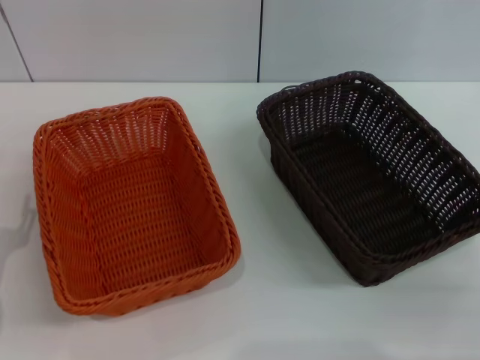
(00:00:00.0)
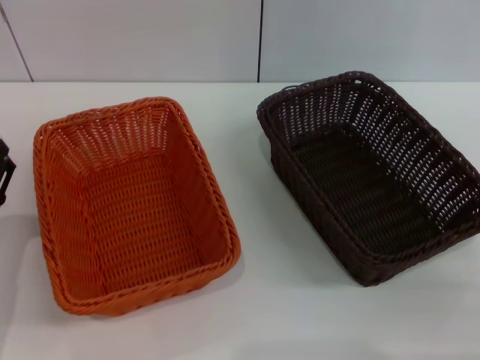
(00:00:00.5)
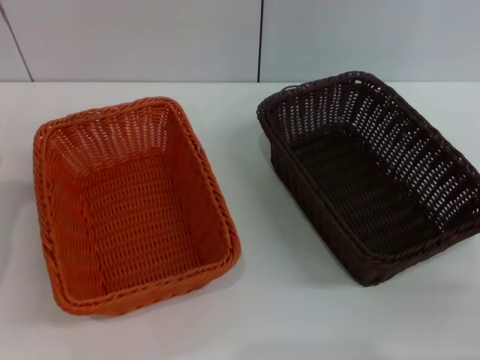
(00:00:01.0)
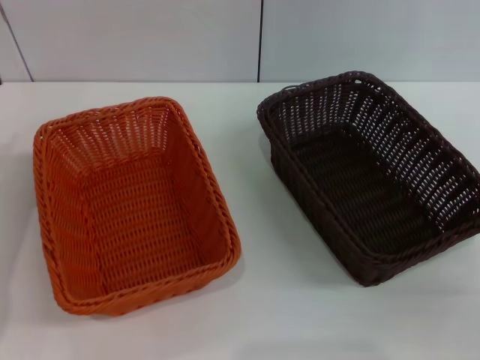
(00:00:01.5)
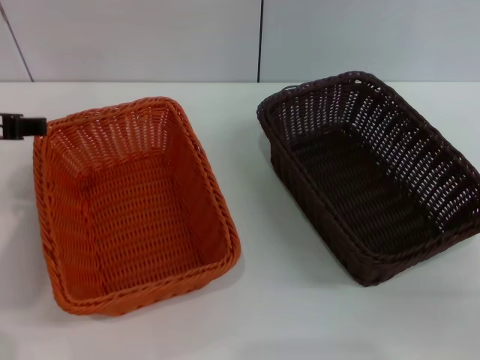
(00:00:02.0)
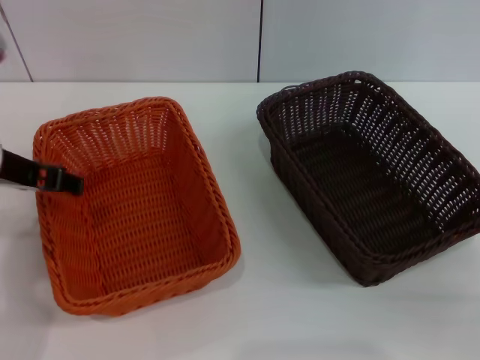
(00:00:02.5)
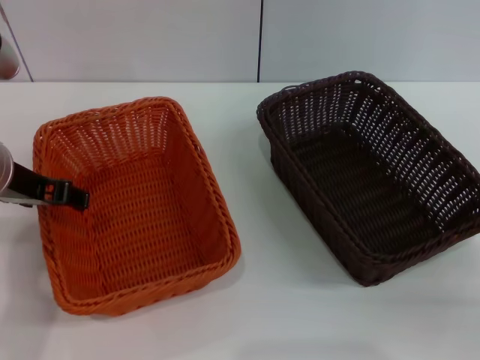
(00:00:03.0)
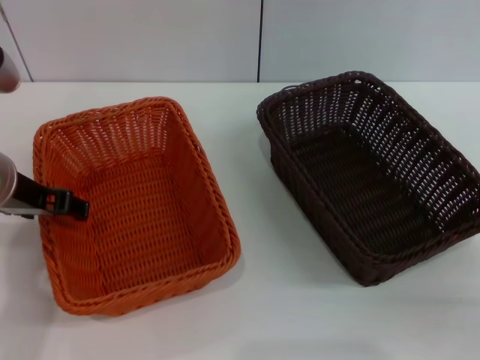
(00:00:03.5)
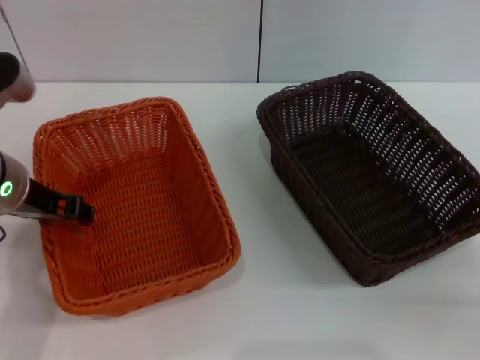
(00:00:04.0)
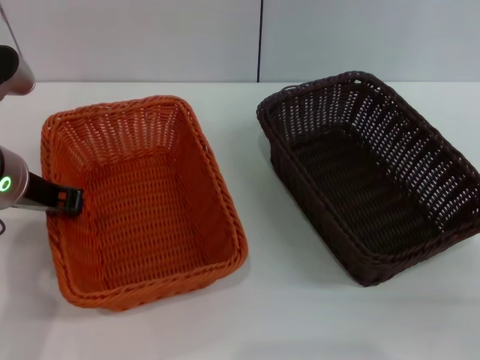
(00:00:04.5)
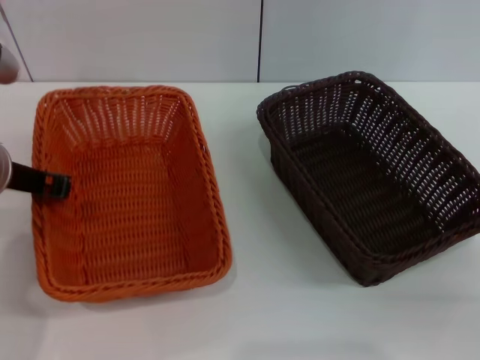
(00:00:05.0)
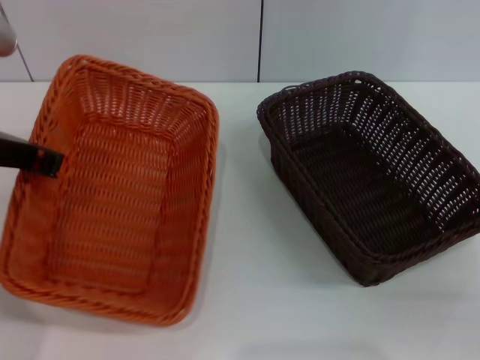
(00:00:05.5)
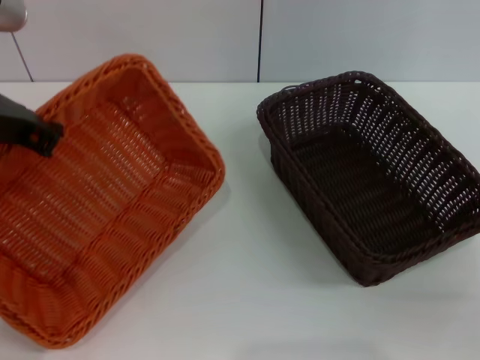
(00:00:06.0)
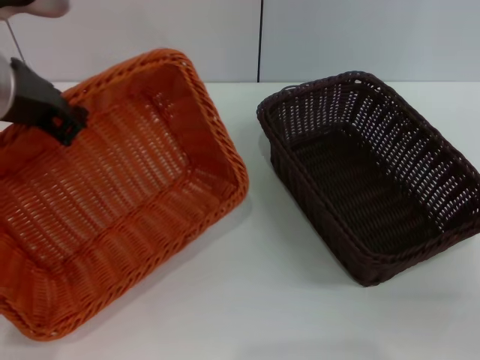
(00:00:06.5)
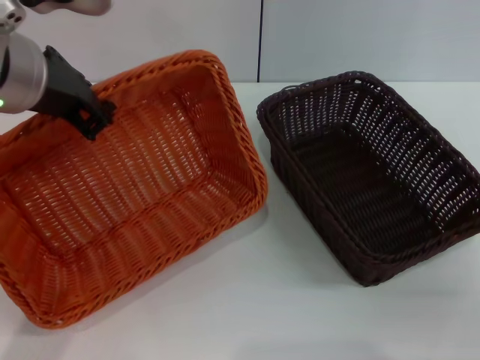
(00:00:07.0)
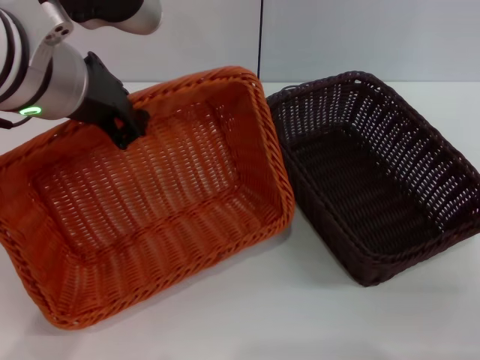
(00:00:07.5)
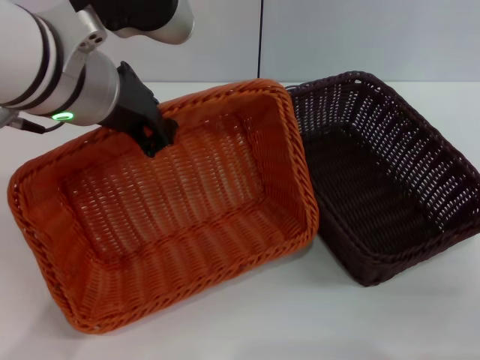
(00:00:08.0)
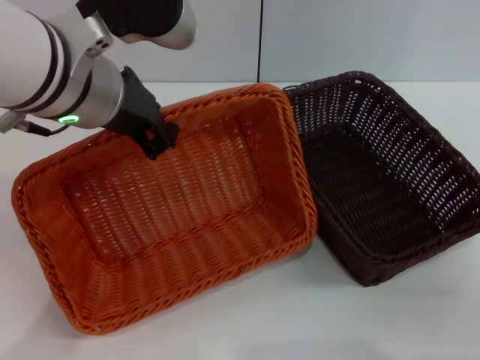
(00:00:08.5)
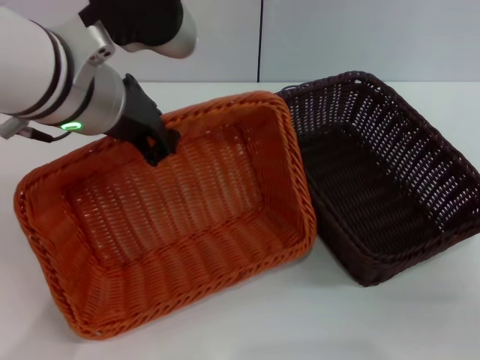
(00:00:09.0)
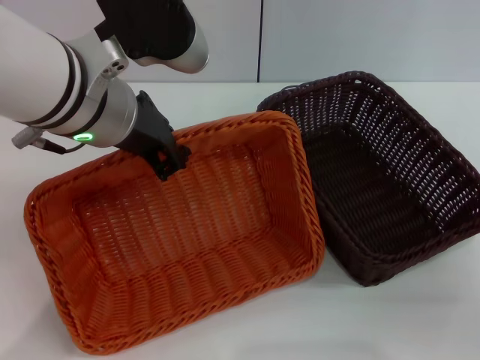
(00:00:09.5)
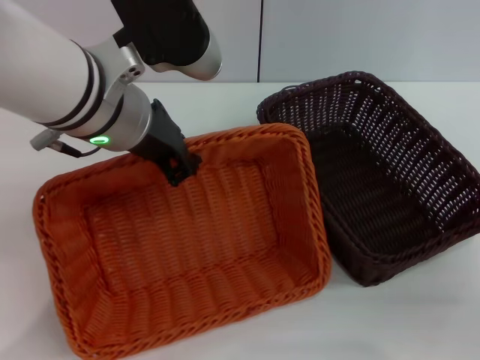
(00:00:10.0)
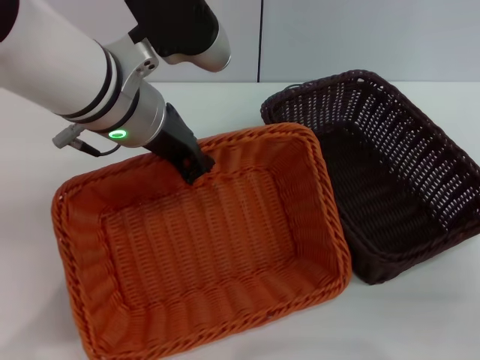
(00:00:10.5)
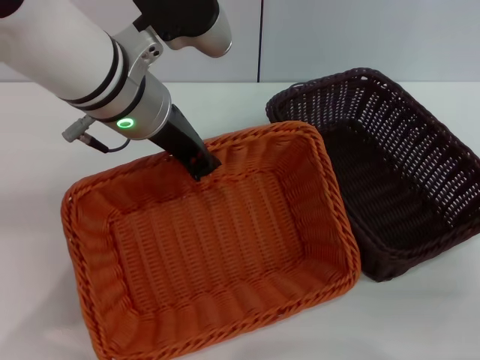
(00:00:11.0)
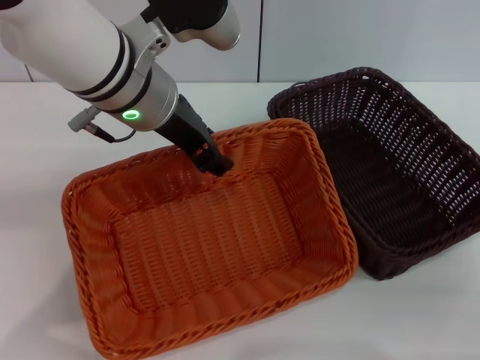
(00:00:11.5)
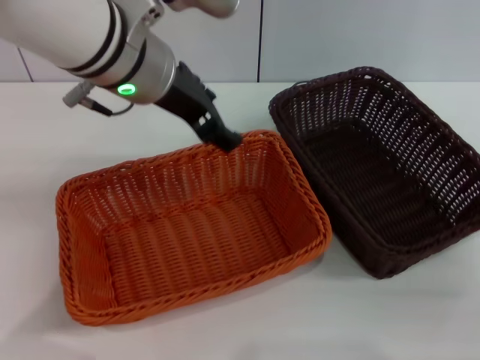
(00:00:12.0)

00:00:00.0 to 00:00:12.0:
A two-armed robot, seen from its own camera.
Step, 00:00:00.0 to 00:00:05.5: Pick up the light basket with the left gripper.
Step, 00:00:06.0 to 00:00:11.5: Place the light basket in the center of view with the left gripper.
00:00:00.0 to 00:00:02.0: The left gripper shifts roughly 25 cm upward and forward.
00:00:02.0 to 00:00:04.0: The left gripper goes about 5 cm downward.
00:00:04.0 to 00:00:06.0: The left gripper heads upward, covering roughly 10 cm, and closes.
00:00:06.0 to 00:00:08.0: The left gripper goes approximately 10 cm to the right.
00:00:10.0 to 00:00:12.0: The left gripper opens up.

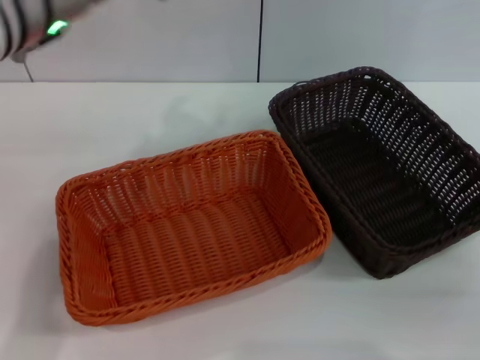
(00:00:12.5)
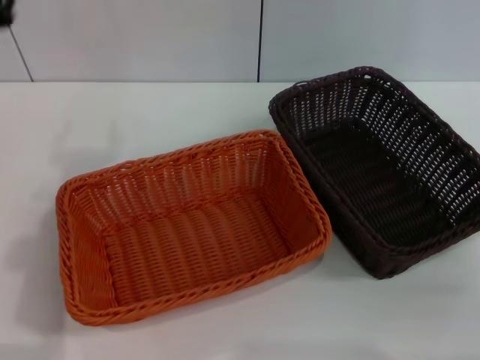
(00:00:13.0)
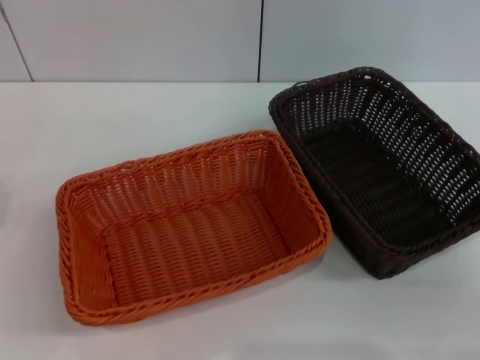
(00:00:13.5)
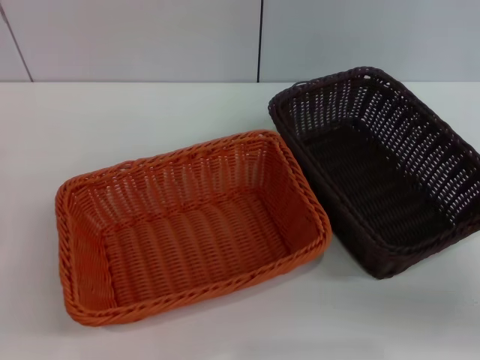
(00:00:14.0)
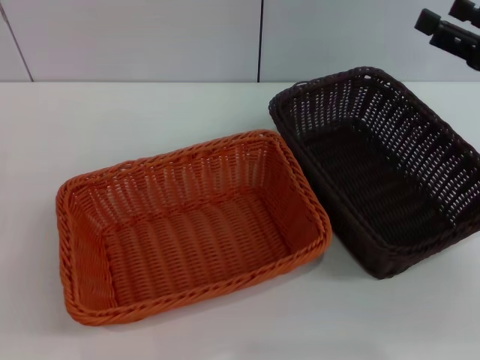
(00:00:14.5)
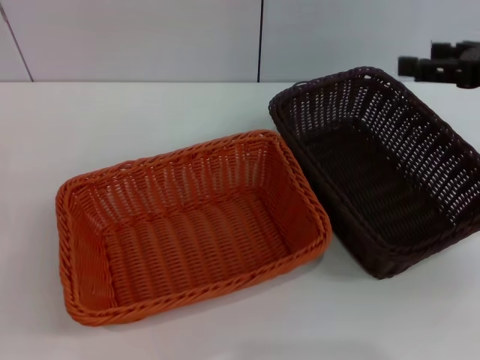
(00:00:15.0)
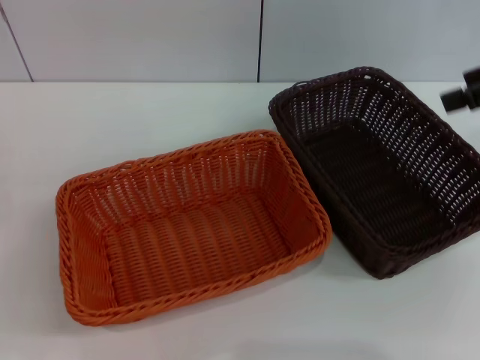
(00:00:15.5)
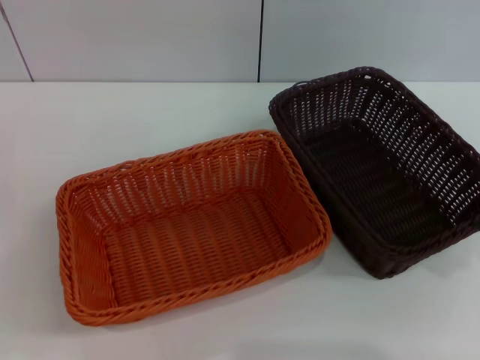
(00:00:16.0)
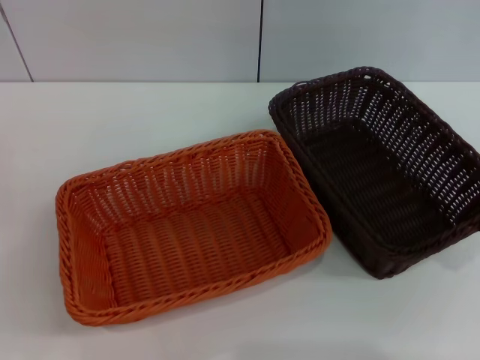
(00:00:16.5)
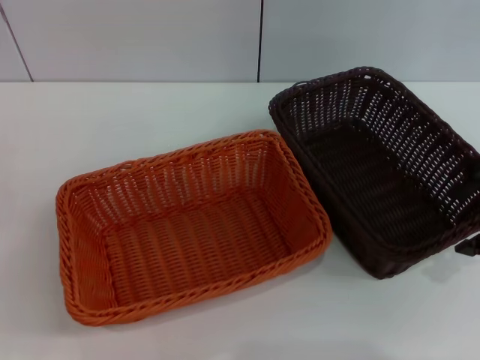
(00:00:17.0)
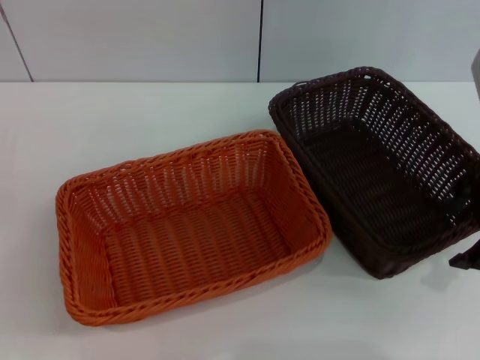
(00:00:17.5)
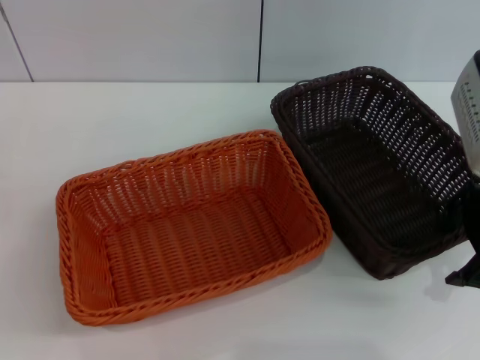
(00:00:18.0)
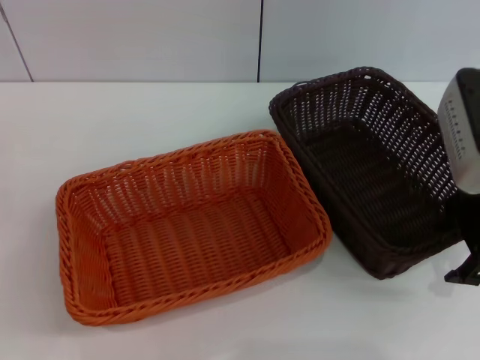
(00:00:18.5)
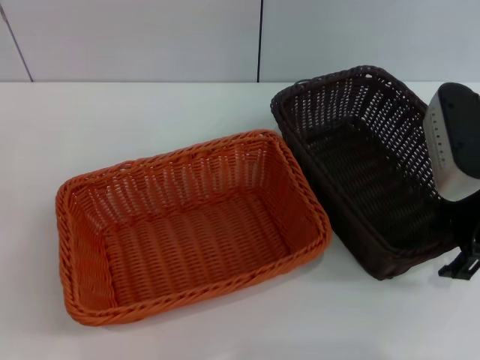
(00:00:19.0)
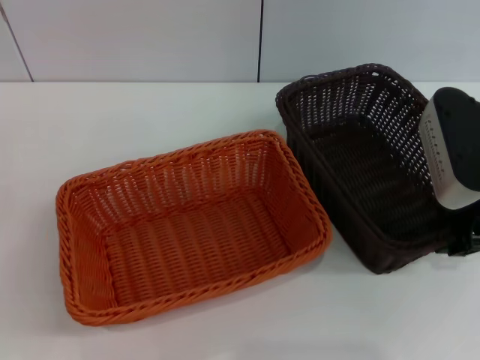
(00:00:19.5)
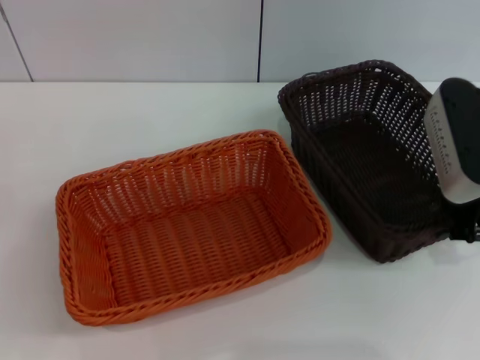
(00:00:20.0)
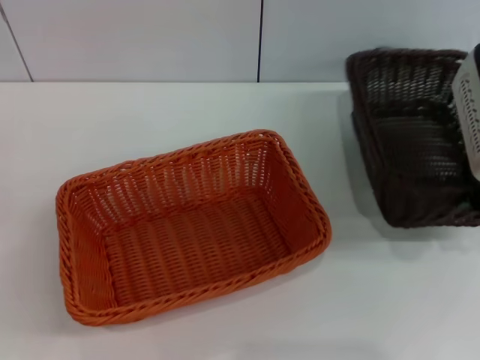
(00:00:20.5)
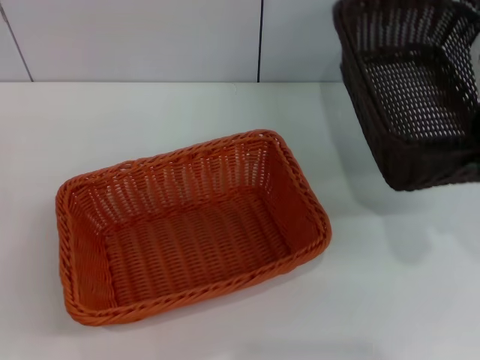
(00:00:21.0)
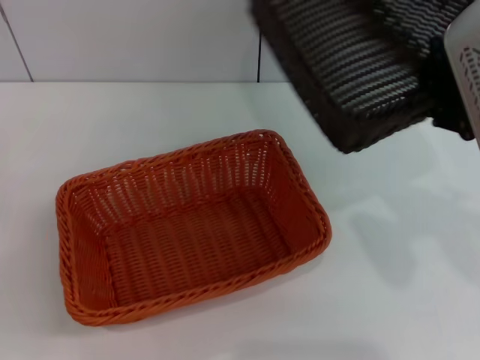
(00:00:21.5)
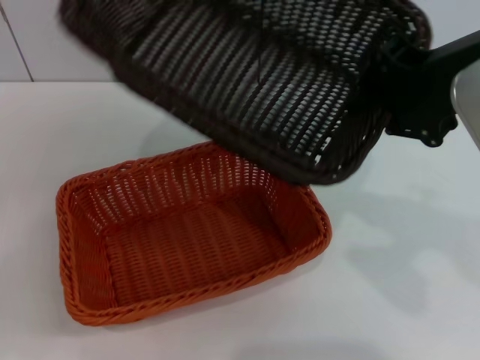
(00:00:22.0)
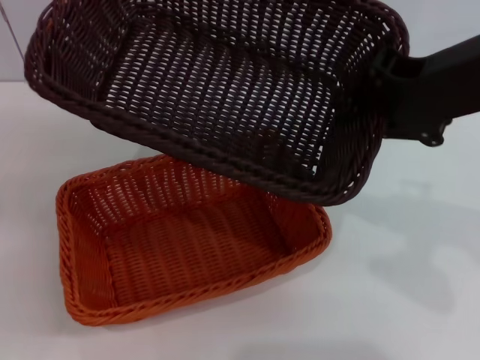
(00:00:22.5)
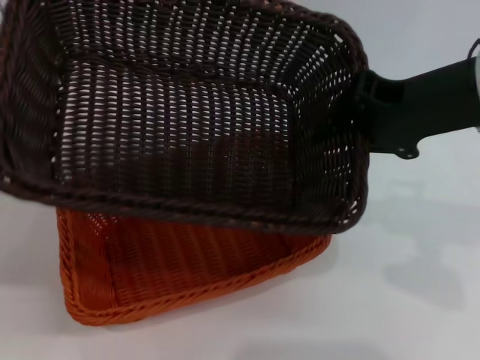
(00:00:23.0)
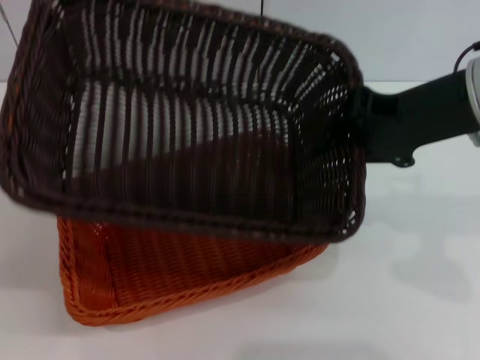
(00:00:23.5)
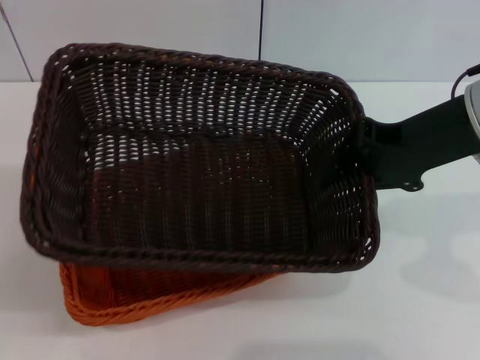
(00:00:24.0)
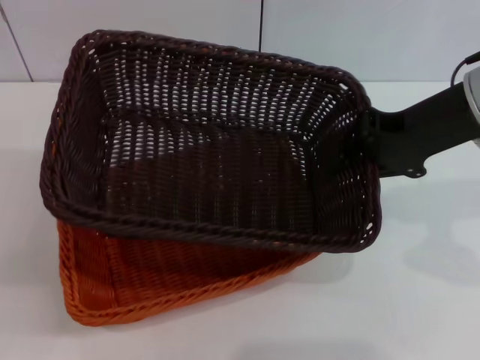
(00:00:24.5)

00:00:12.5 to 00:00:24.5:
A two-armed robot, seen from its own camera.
Step, 00:00:12.5 to 00:00:20.5: Pick up the dark basket with the right gripper.
00:00:12.5 to 00:00:14.5: The right gripper shifts some 15 cm forward and upward, while the left gripper is displaced downward, to the left and backward by about 35 cm.
00:00:14.5 to 00:00:16.5: The right gripper goes roughly 10 cm upward.
00:00:16.5 to 00:00:18.5: The right gripper heads downward, covering some 5 cm.
00:00:18.5 to 00:00:20.5: The right gripper closes.
00:00:20.5 to 00:00:22.5: The right gripper travels upward and to the left by roughly 10 cm.
00:00:22.5 to 00:00:24.5: The right gripper travels downward and forward by some 10 cm.

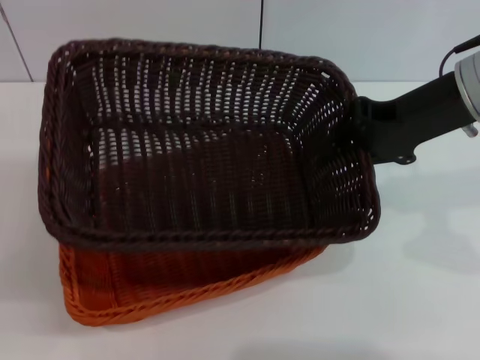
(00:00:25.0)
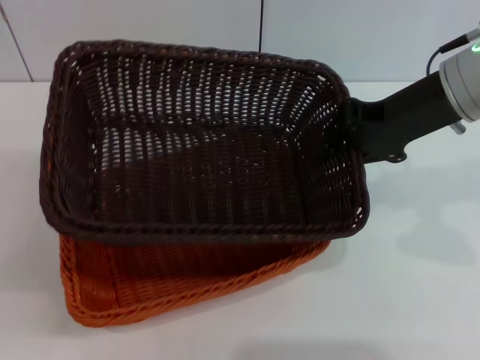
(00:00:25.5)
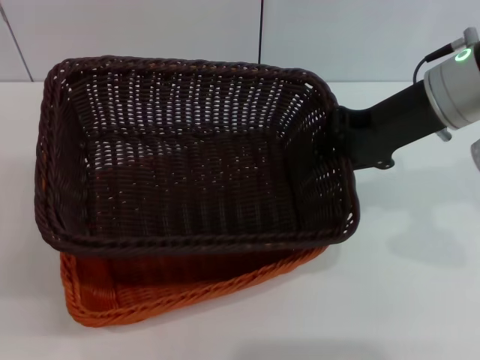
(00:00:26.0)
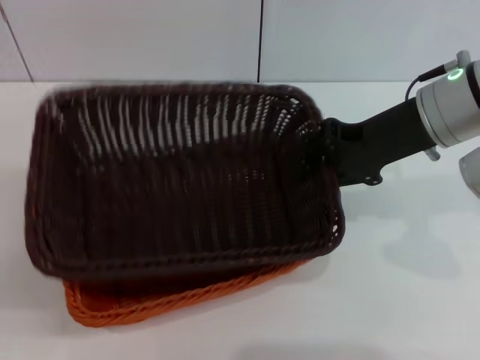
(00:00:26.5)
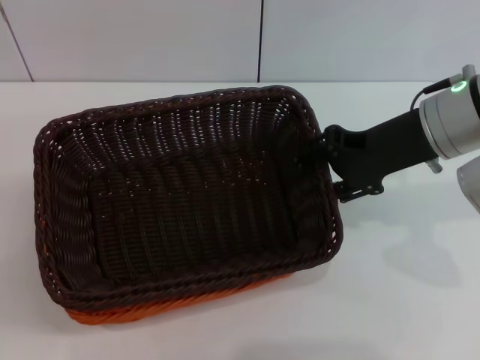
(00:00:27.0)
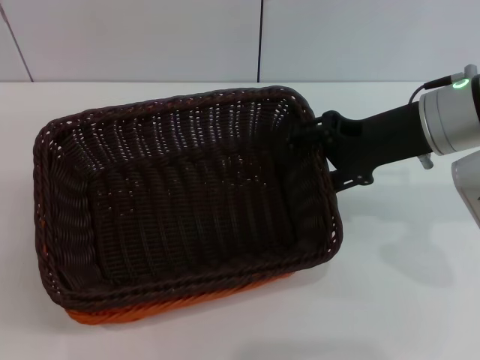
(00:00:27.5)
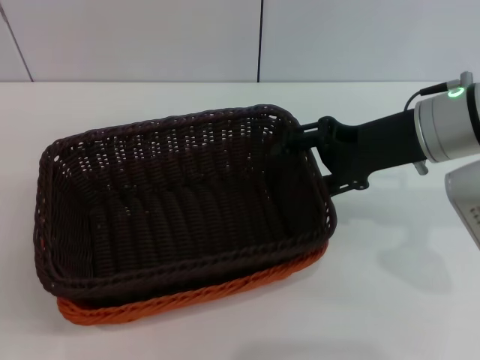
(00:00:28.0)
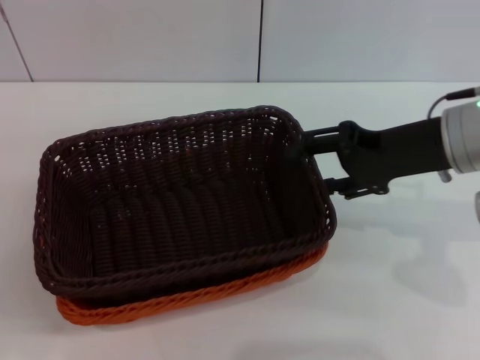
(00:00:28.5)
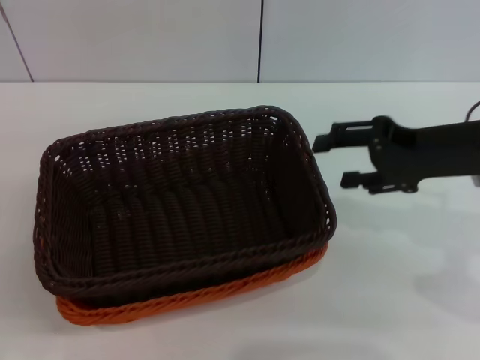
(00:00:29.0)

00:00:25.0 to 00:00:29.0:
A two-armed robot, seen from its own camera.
Step, 00:00:25.0 to 00:00:28.0: Place the dark basket on the light basket with the right gripper.
00:00:25.0 to 00:00:27.0: The right gripper opens up.
00:00:27.0 to 00:00:29.0: The right gripper changes place by some 5 cm, and opens.
